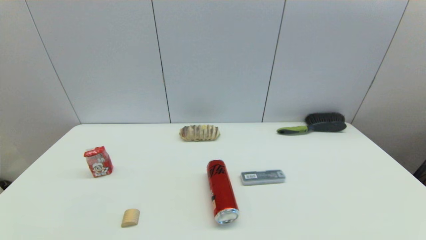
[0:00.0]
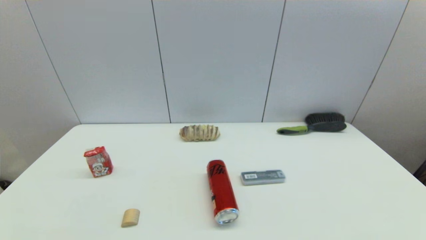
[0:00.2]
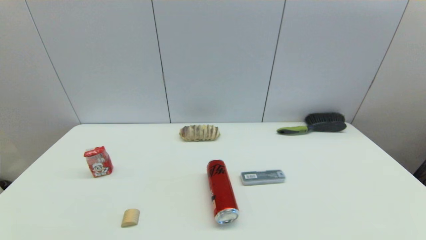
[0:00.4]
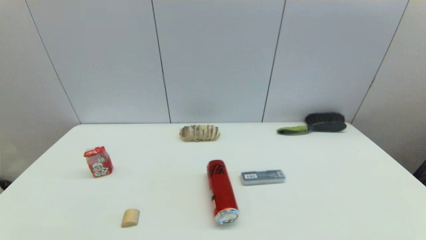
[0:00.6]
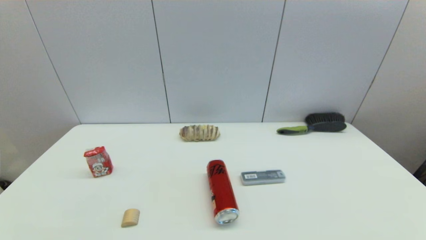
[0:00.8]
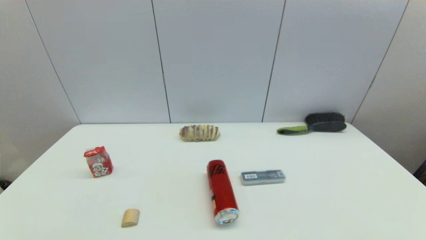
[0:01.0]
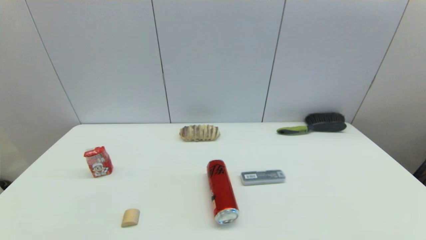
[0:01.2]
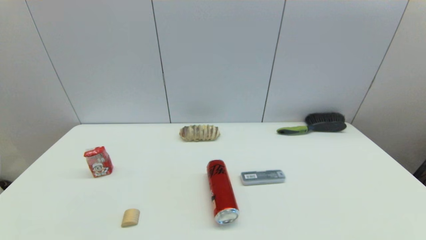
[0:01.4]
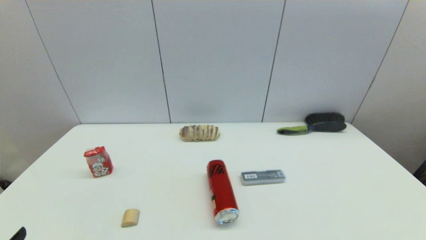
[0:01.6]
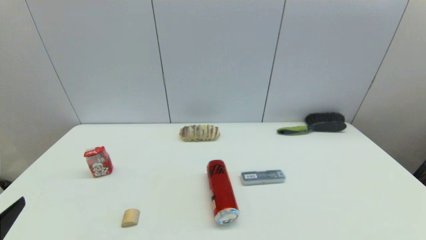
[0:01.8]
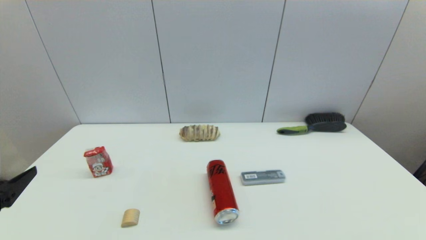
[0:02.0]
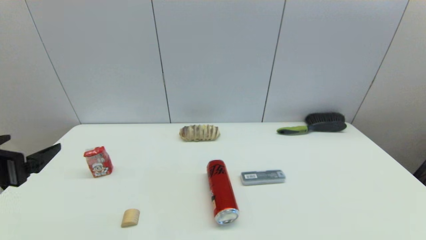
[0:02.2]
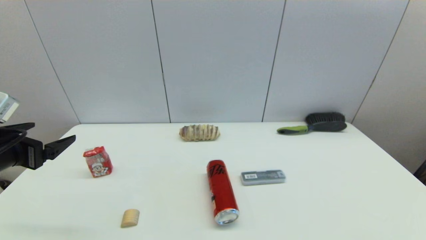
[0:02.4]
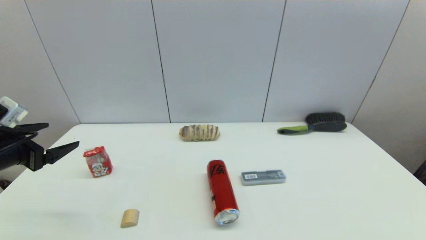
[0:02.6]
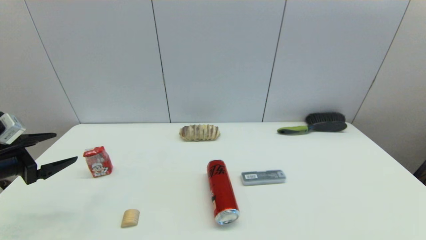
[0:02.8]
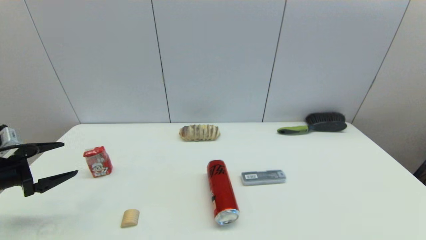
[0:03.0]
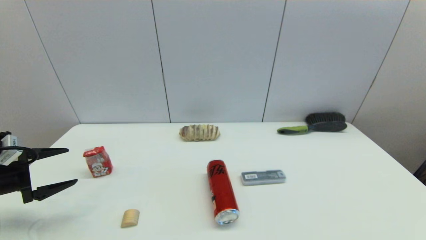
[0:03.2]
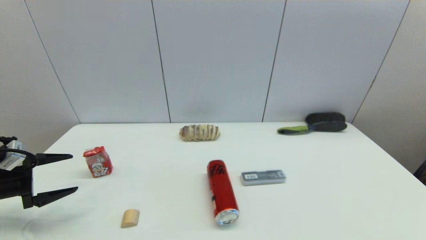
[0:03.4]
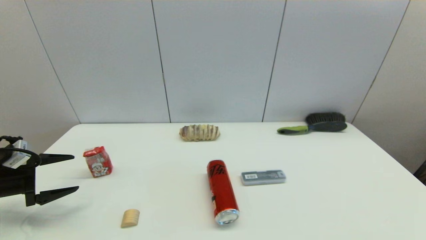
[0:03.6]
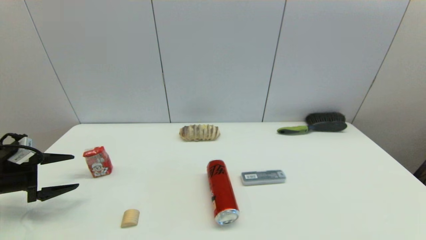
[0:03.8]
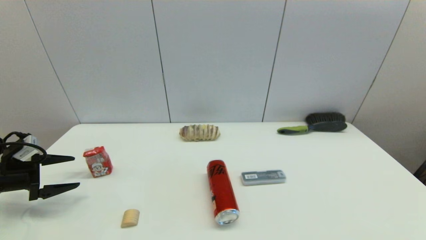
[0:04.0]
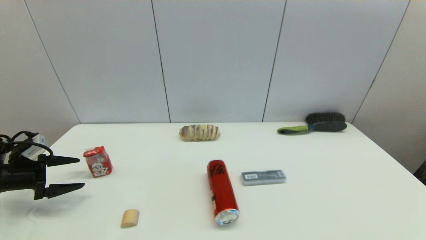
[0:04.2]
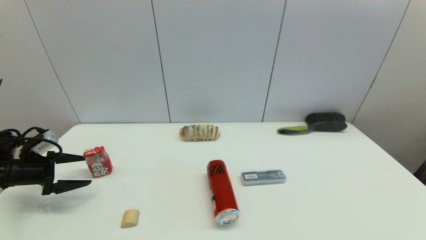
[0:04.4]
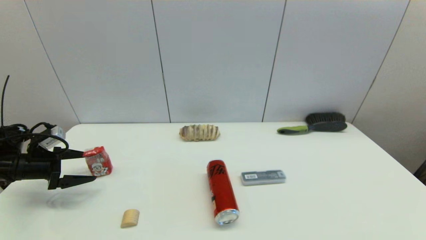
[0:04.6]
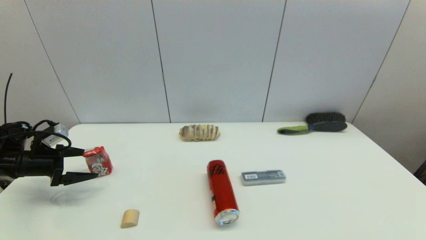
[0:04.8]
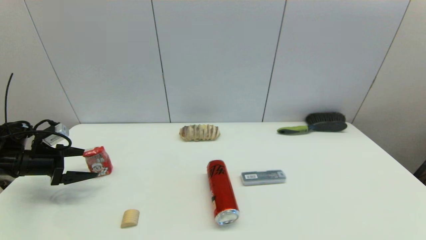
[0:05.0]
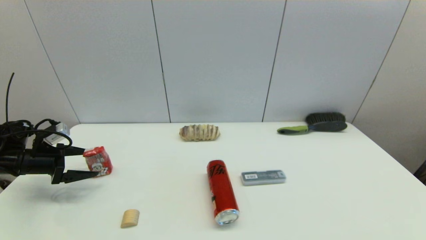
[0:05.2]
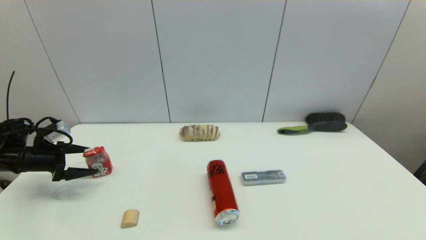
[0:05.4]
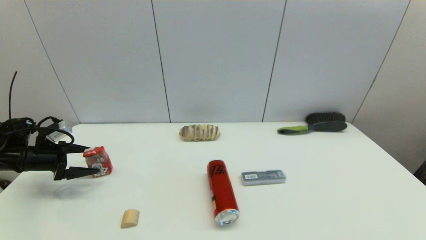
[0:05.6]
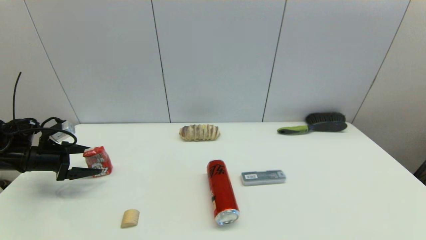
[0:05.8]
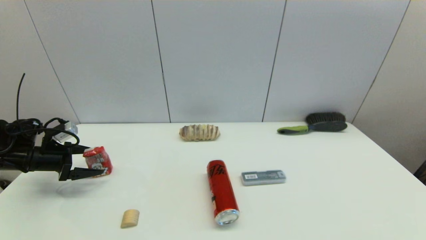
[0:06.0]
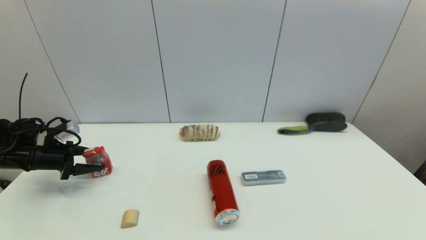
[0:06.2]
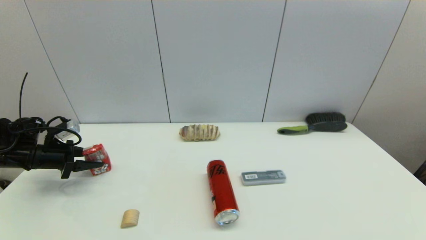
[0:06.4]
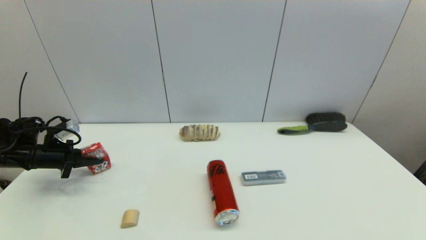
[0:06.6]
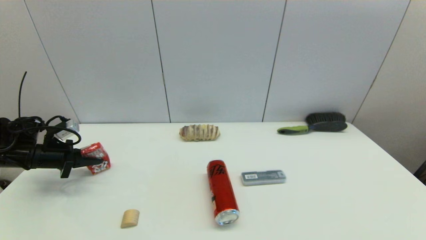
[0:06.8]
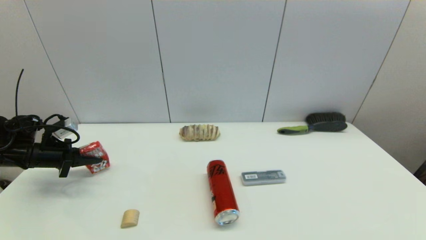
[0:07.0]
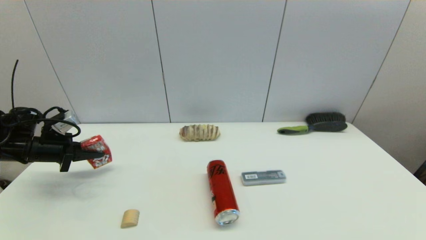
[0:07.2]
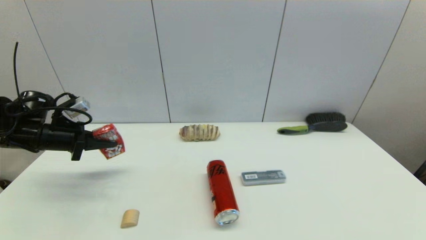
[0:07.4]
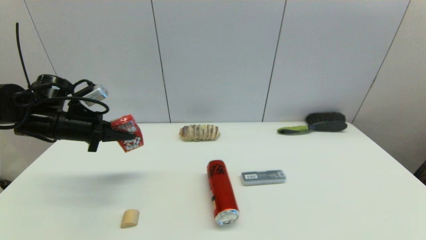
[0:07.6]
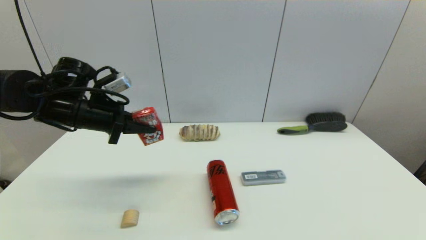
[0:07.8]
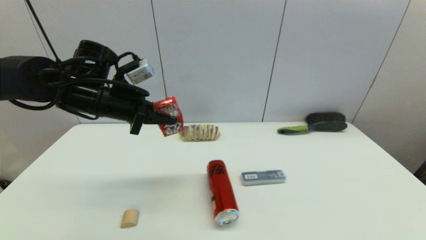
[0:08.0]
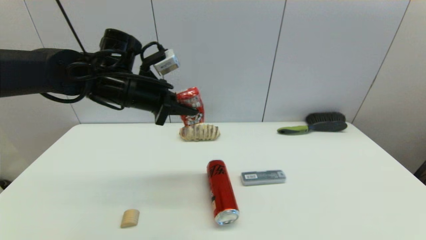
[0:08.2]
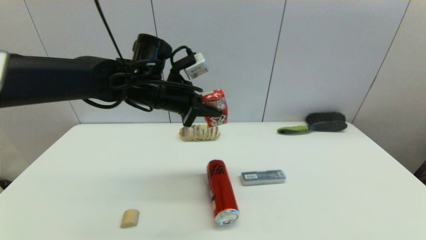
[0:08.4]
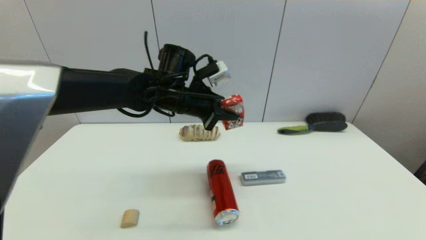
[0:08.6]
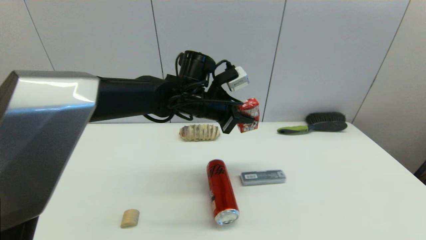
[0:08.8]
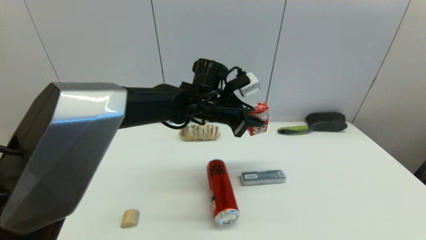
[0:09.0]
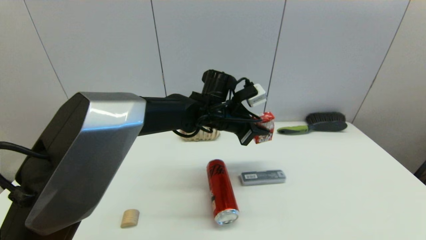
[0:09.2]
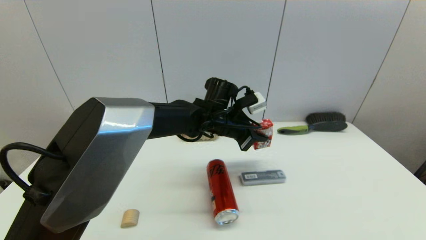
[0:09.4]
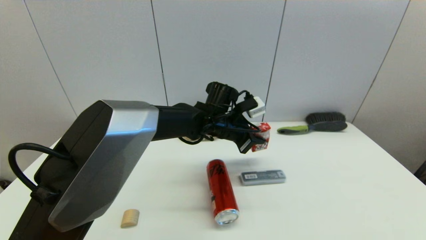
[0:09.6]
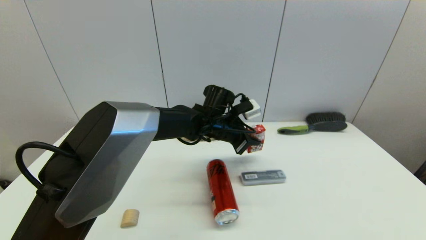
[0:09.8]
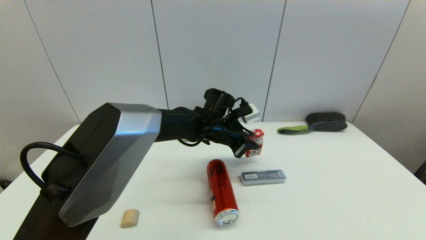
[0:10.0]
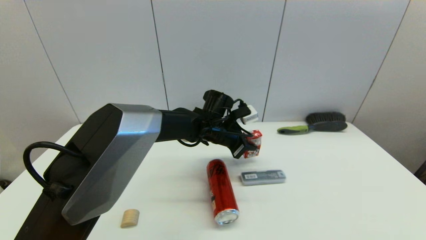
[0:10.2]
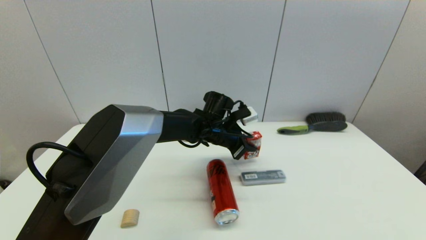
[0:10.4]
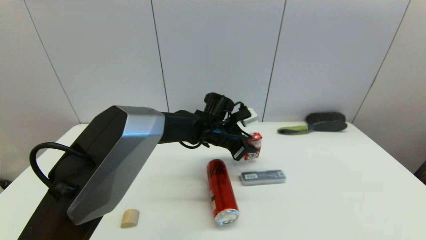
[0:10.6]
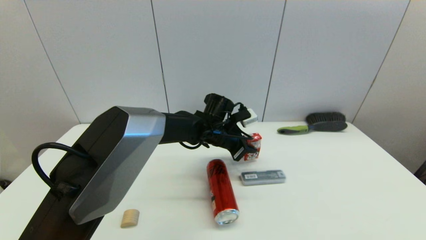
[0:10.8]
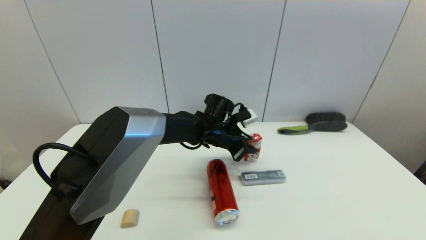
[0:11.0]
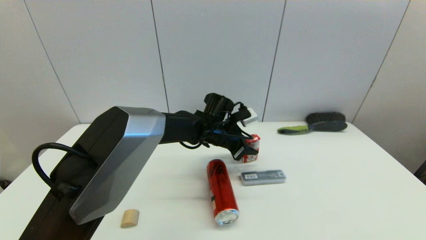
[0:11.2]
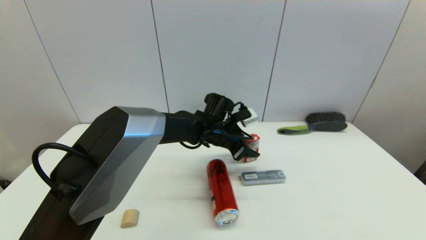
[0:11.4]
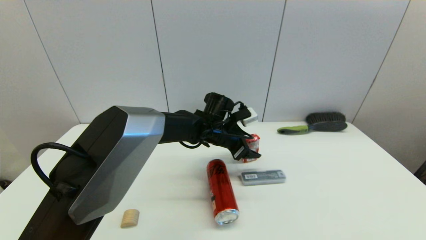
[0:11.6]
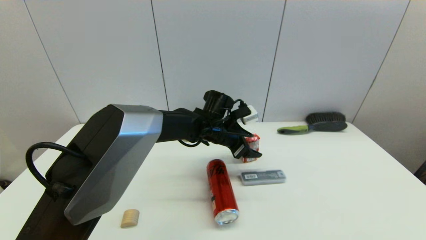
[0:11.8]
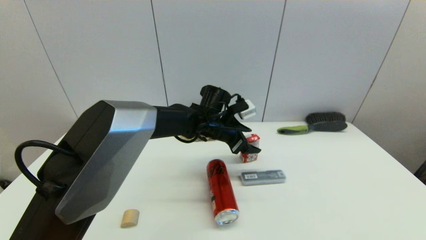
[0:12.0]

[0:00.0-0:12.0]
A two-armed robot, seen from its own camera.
Step, 0:01.8 to 0:06.4: Grasp the wangzai milk with left gripper.
Step, 0:06.8 to 0:11.2: Place the wangzai milk on the table with left gripper.
0:01.6 to 0:03.0: The left gripper heads forward and to the left, covering some 25 cm.
0:03.0 to 0:04.4: The left gripper is displaced forward by roughly 5 cm.
0:04.4 to 0:06.0: The grippers make only small movements.
0:06.0 to 0:07.6: The left gripper heads to the right and upward, covering approximately 15 cm, and closes its fingers.
0:07.6 to 0:09.0: The left gripper shifts about 30 cm to the right.
0:09.0 to 0:10.4: The left gripper goes approximately 10 cm downward.
0:10.4 to 0:12.0: The left gripper opens.

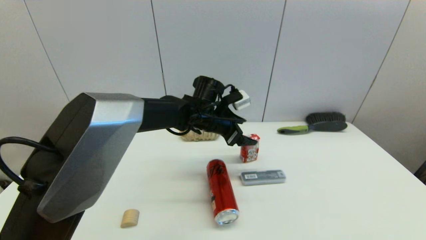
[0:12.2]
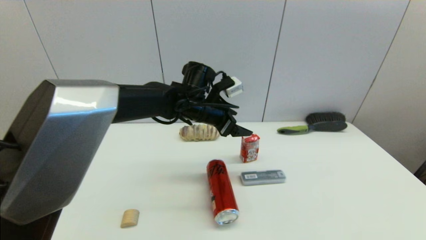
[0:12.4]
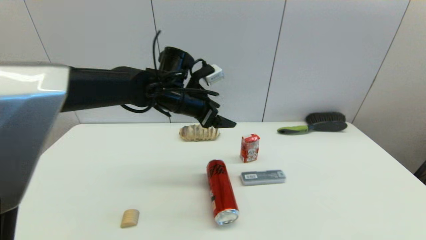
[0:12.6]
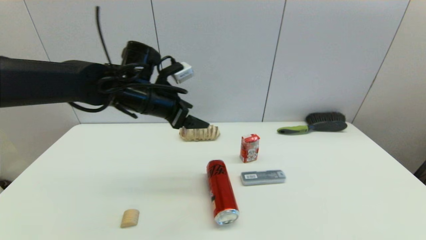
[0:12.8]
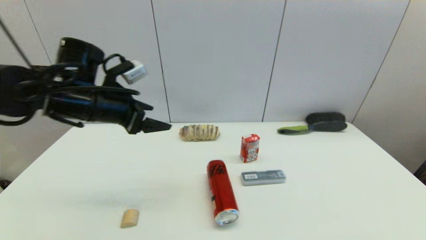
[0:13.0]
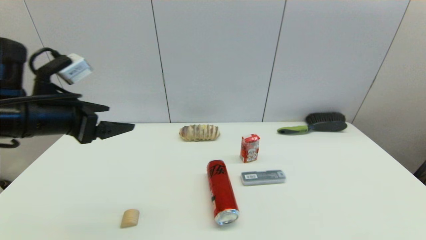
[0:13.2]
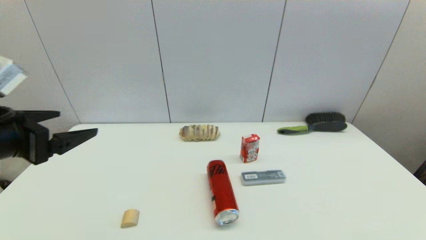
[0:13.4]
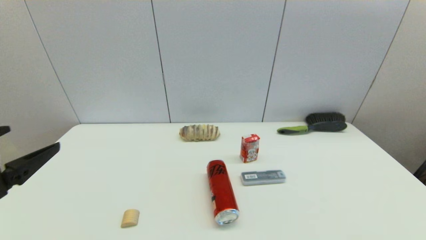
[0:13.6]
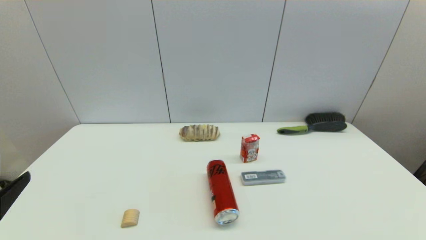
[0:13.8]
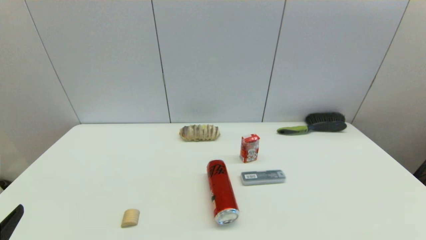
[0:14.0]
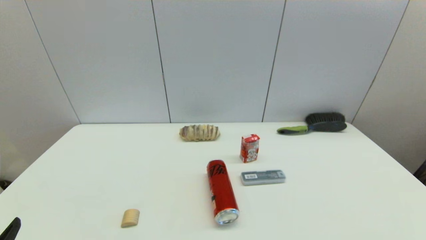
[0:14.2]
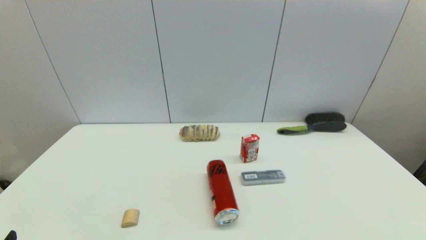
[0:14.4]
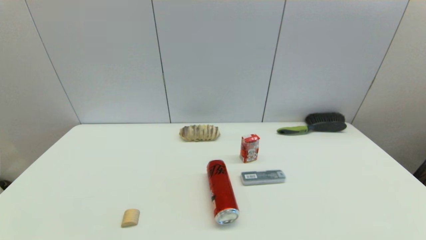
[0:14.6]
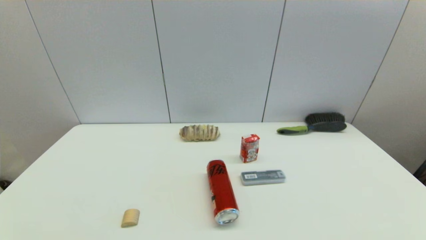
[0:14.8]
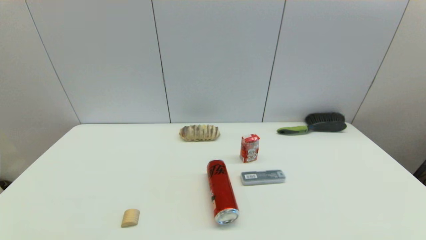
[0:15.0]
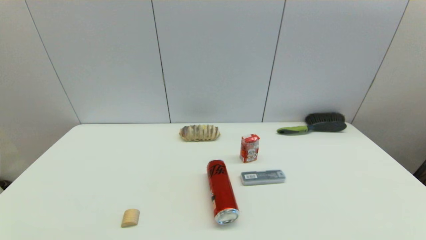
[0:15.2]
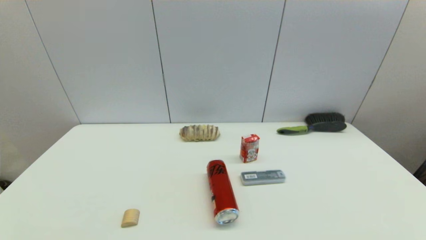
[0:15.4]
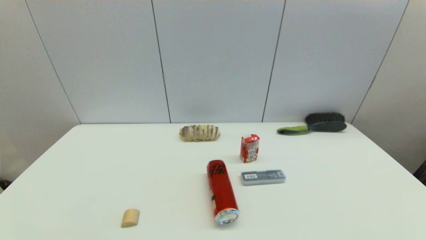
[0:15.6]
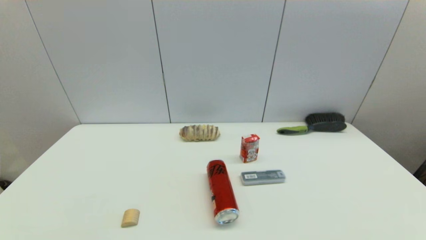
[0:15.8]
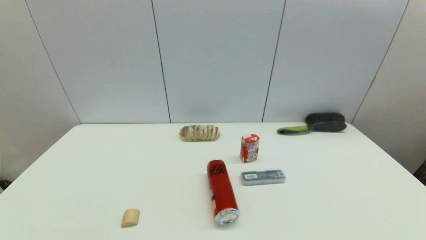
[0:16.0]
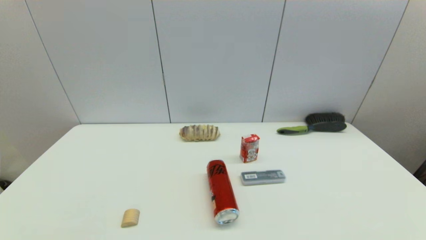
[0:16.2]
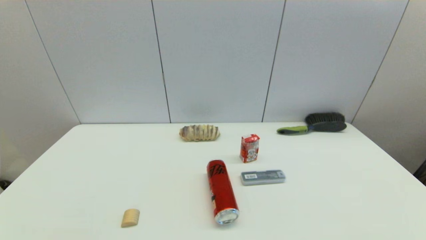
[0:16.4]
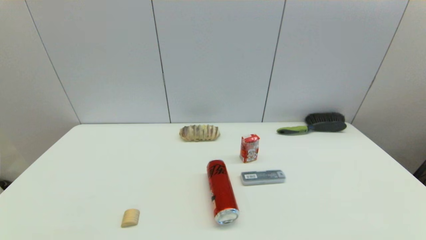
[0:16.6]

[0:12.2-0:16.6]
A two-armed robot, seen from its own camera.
0:12.2 to 0:13.6: The left gripper moves backward and to the left, some 40 cm.
0:13.6 to 0:15.2: The left gripper is displaced downward and backward by about 20 cm.
0:15.2 to 0:16.6: Neither gripper changes place.
